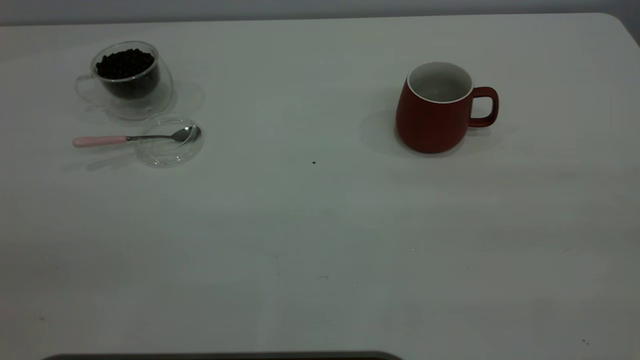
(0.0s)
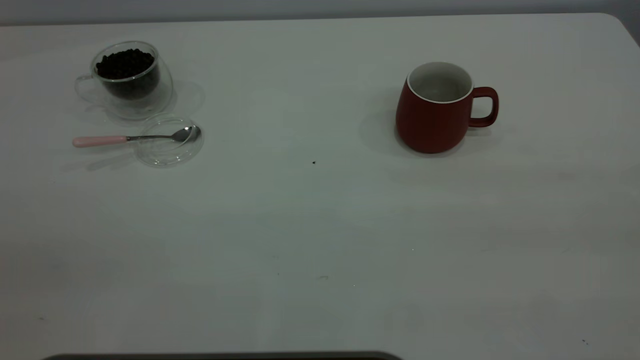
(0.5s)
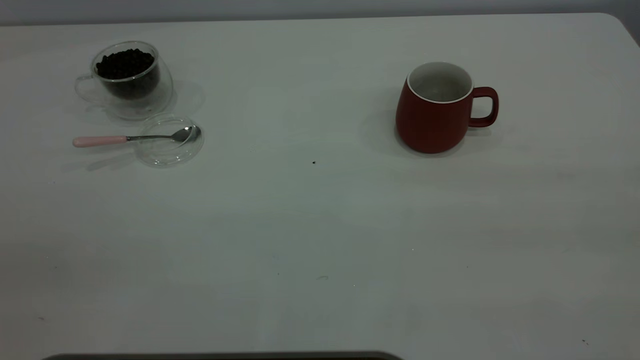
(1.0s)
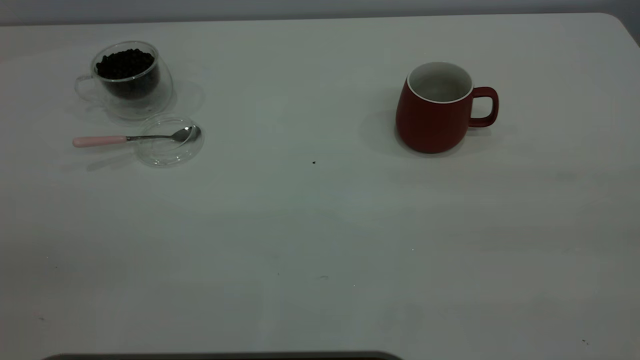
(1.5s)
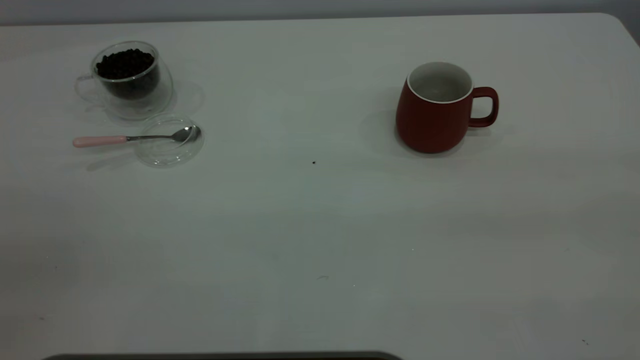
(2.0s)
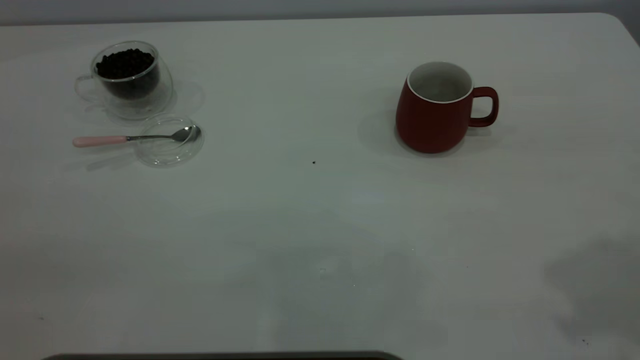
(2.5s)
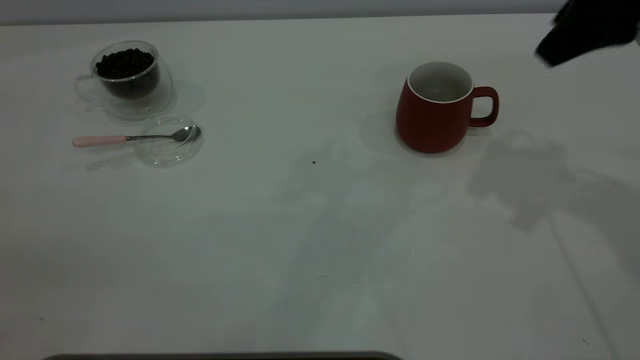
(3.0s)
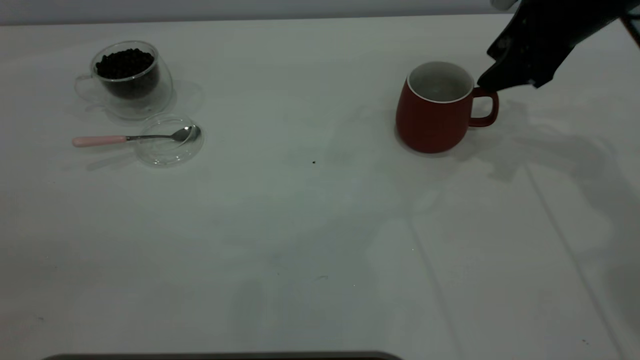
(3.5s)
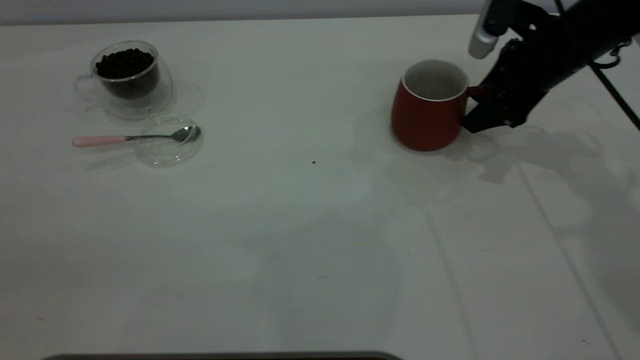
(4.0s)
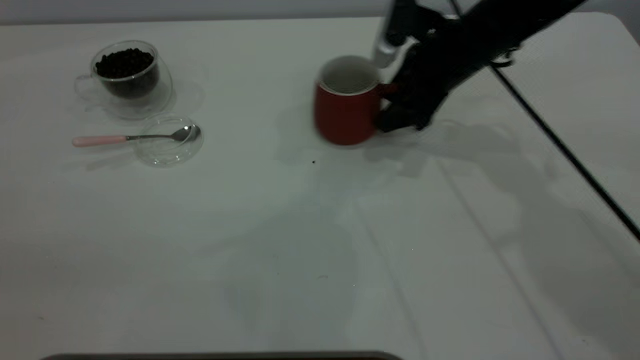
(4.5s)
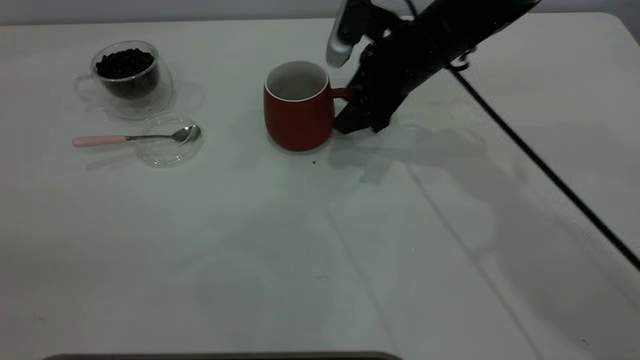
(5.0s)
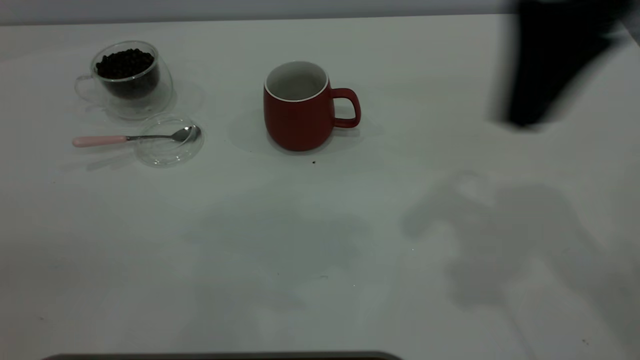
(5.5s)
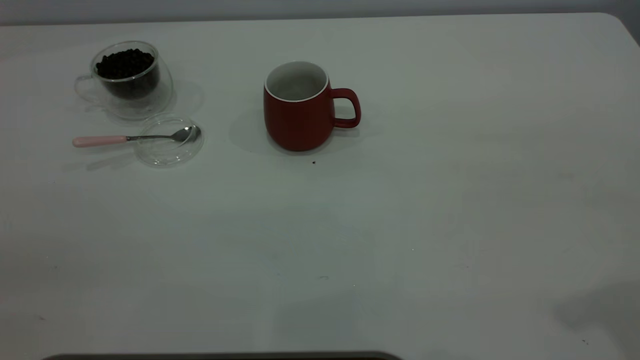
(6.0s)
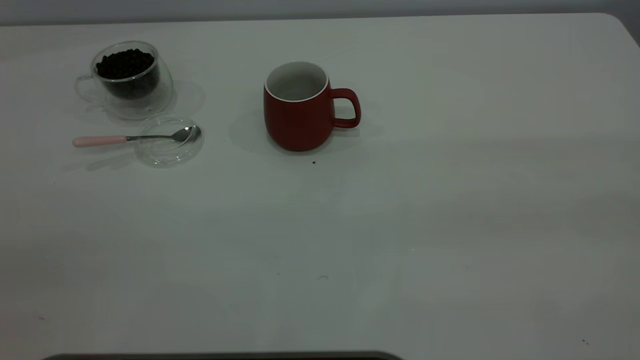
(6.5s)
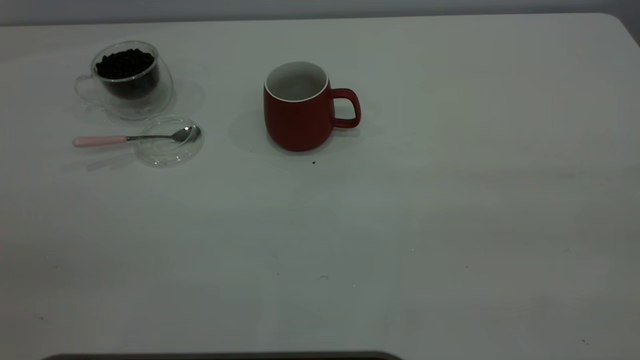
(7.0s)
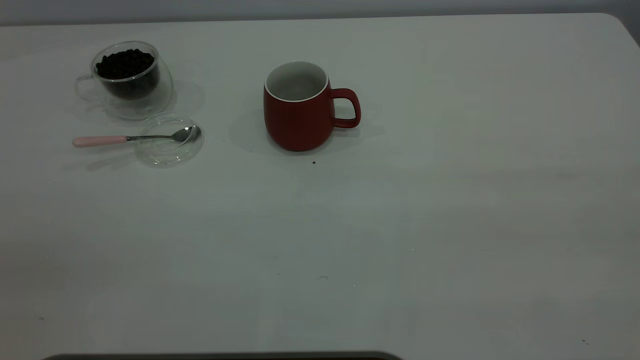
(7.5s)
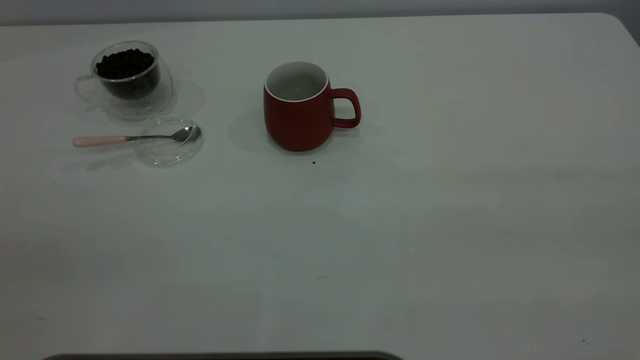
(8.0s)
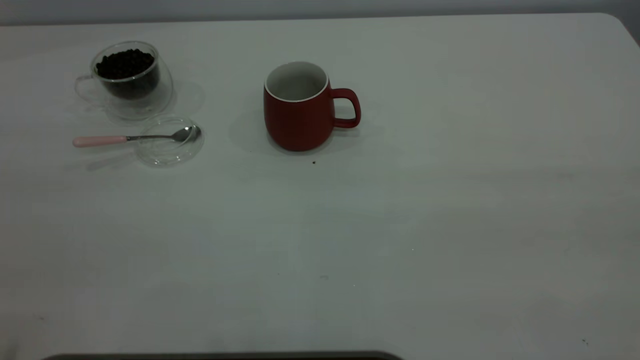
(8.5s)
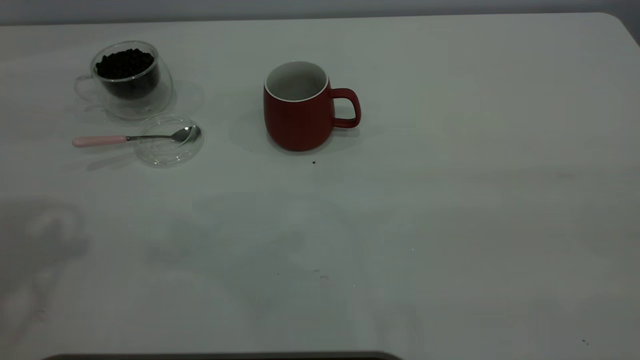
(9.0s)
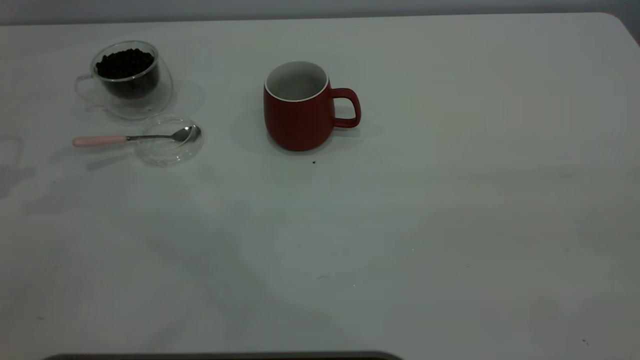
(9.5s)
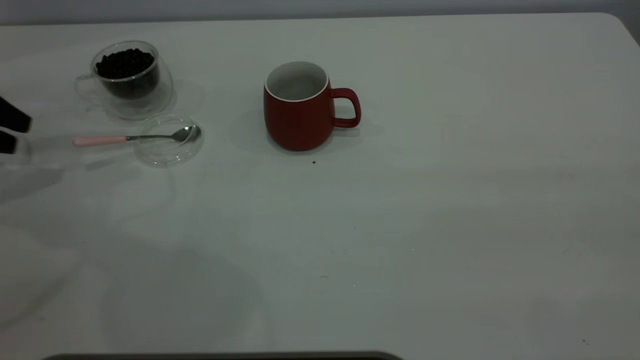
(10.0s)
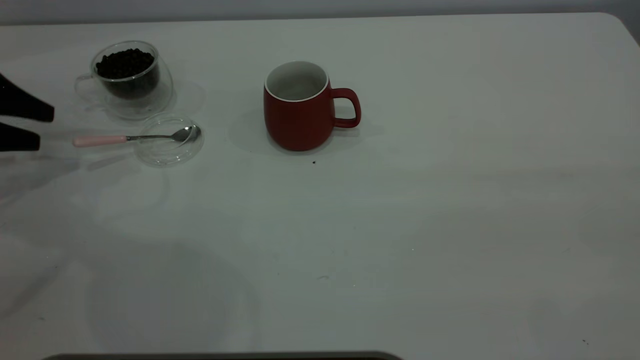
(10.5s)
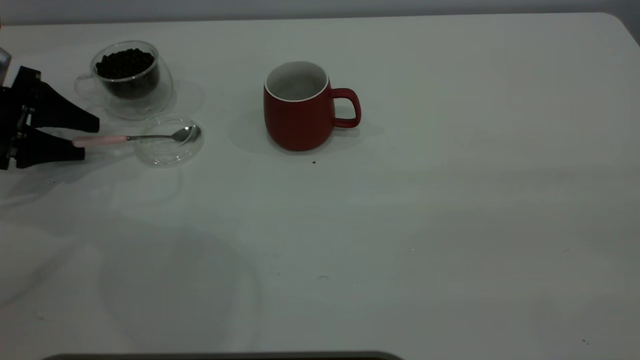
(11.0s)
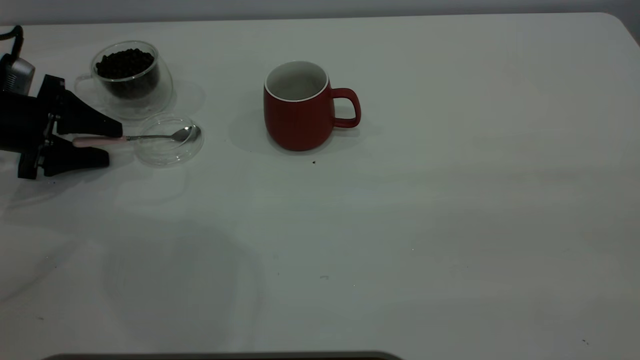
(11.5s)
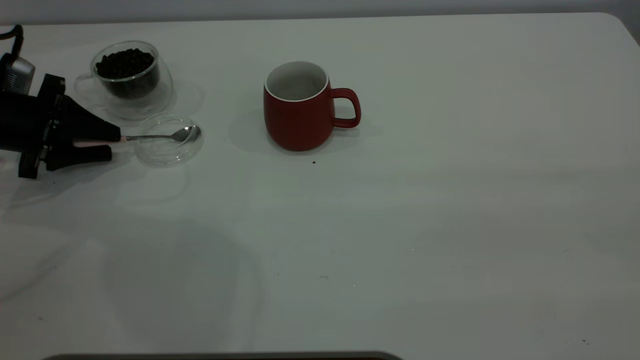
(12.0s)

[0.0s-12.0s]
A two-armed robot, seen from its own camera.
Task of the whole recording: the right gripper place the red cup in the center of the table, the left gripper take the pink spoon from the cup lid and scoop out the coffee beans from the coffee cup and put them into the red cup, the left gripper put the spoon back into the cup lid.
Step, 0.0s to 5.0s: Move the cup to the center of view.
2.0s to 4.0s: The right gripper shifts about 50 cm forward and downward, and opens.
4.0s to 6.0s: The right gripper travels backward and upward by some 35 cm.
8.0s to 10.0s: The left gripper is displaced forward and downward by roughly 40 cm.
10.0s to 12.0s: The left gripper goes approximately 10 cm downward and to the right.

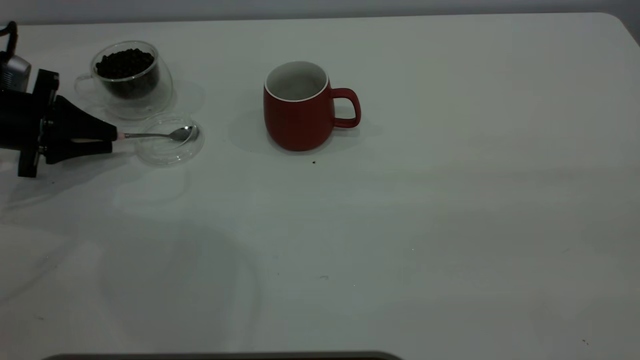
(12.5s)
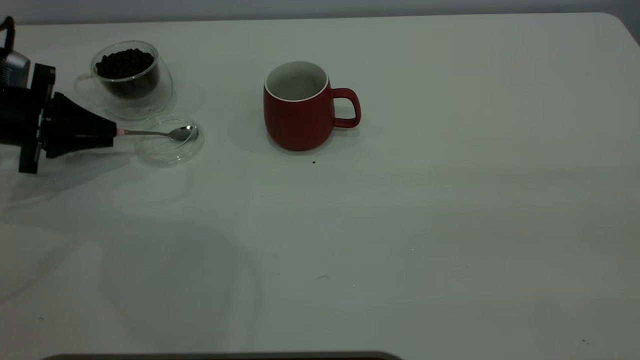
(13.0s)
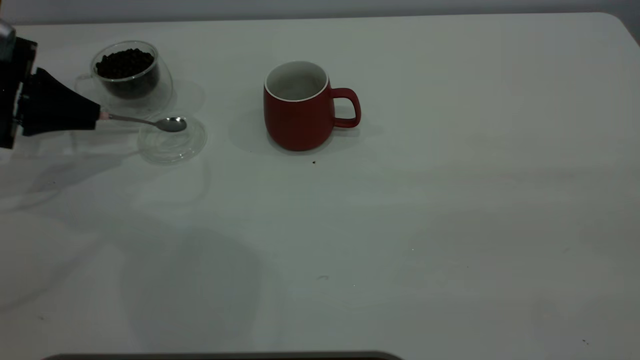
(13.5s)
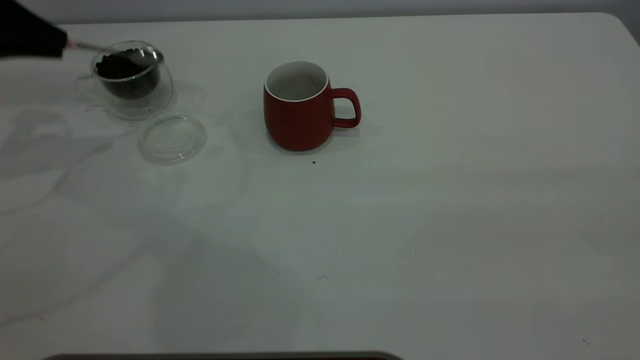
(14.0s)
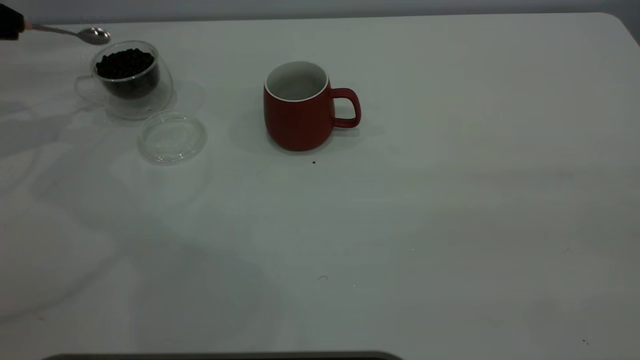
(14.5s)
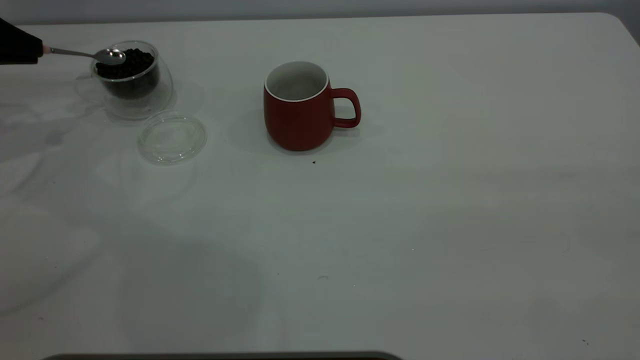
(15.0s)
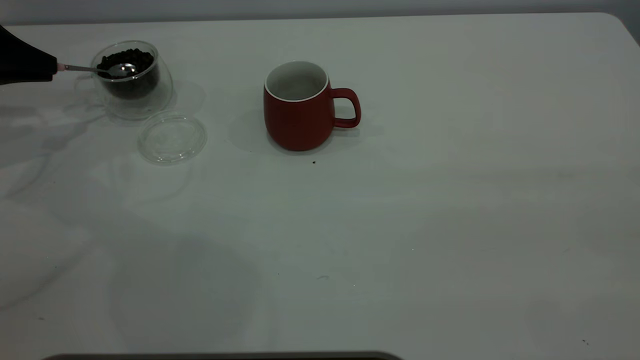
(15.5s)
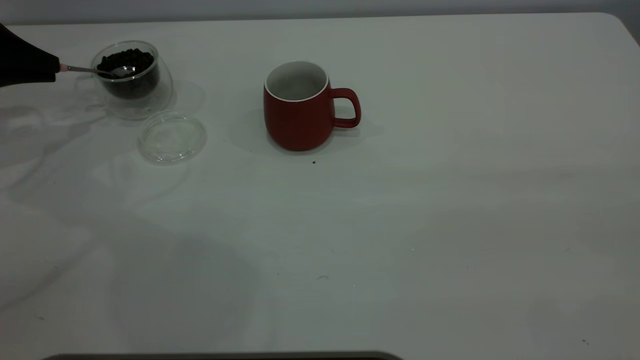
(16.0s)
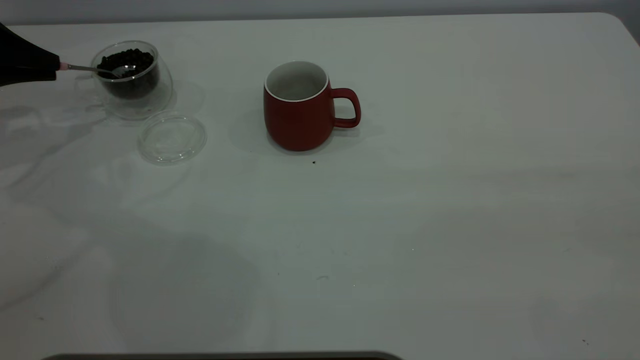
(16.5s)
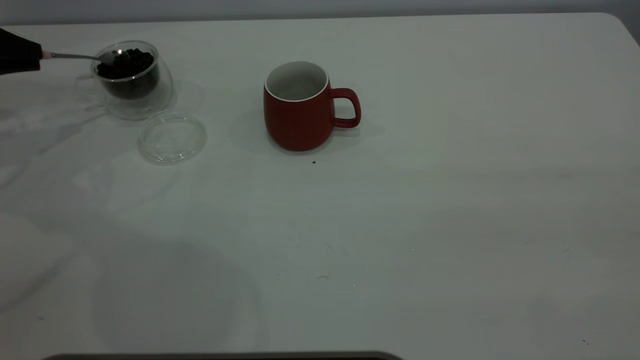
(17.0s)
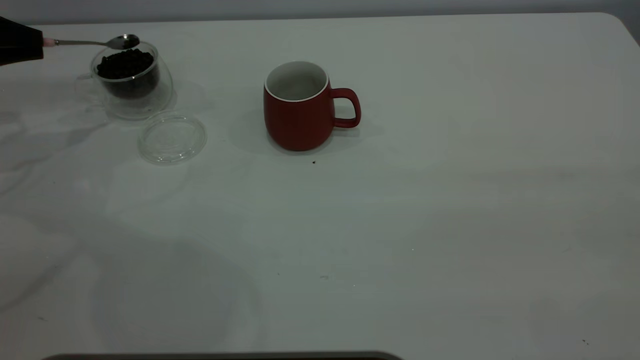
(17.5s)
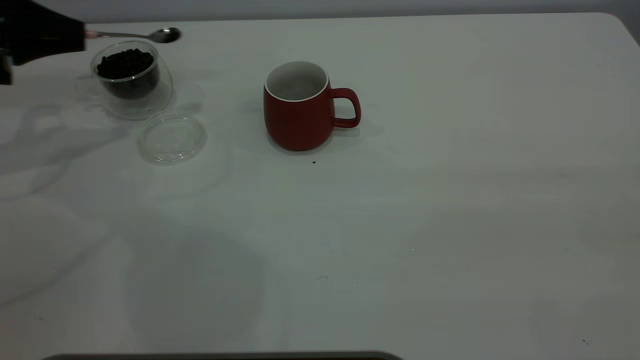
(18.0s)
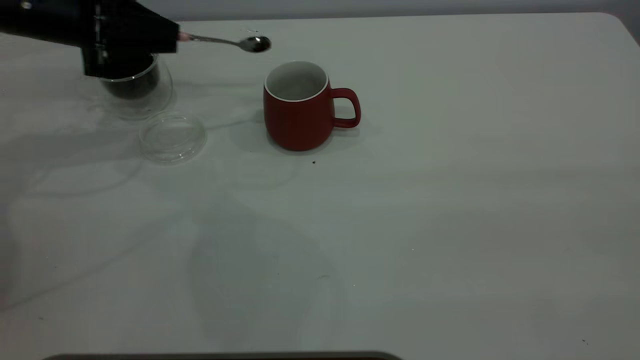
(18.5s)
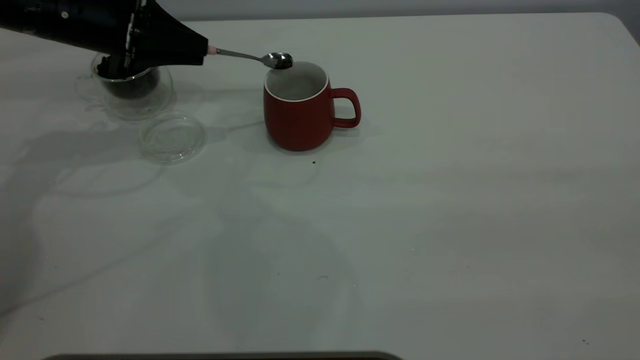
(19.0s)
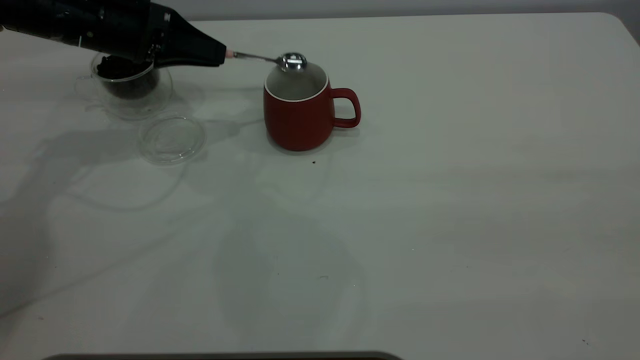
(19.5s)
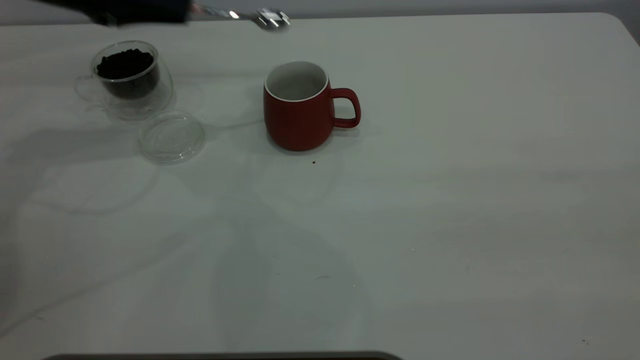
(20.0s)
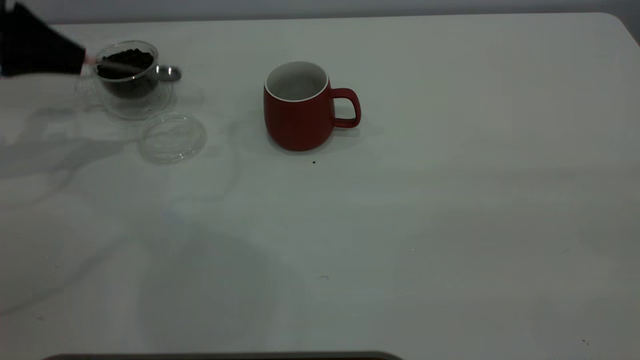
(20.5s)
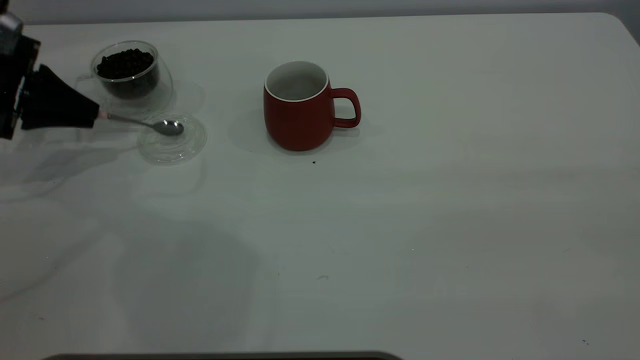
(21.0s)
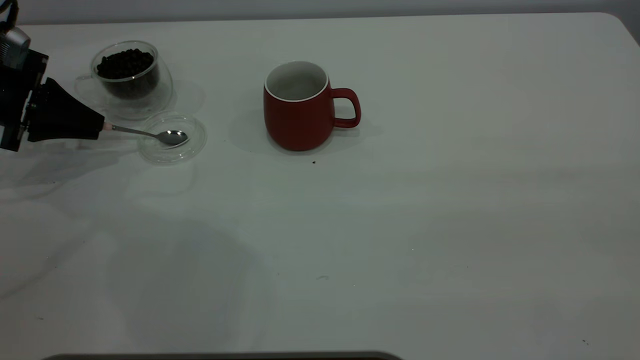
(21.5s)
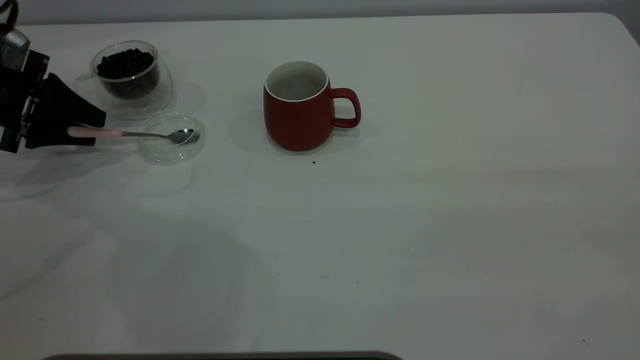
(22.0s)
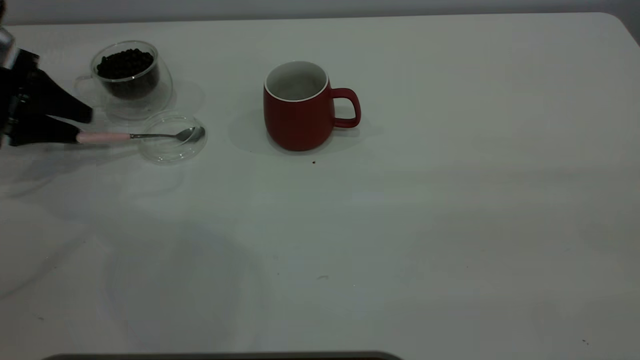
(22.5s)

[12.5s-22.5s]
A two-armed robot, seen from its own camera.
Task of the whole recording: the right gripper place the red cup in the center of the table, the left gripper take the pink spoon from the cup lid and scoop out the coffee beans from the coffee cup and put them into the red cup, the left gripper put the spoon back into the cup lid.
Step, 14.0s to 19.5s: Scoop a spoonful of beans into the cup.
12.5s to 14.5s: The left gripper moves upward and to the left, roughly 15 cm.
14.5s to 16.5s: The left gripper heads downward, covering approximately 5 cm.
16.5s to 18.5s: The left gripper travels to the right by about 15 cm.
18.5s to 20.5s: The left gripper is displaced to the left by roughly 10 cm.
20.5s to 22.5s: The left gripper travels downward by some 5 cm, and opens its fingers.
